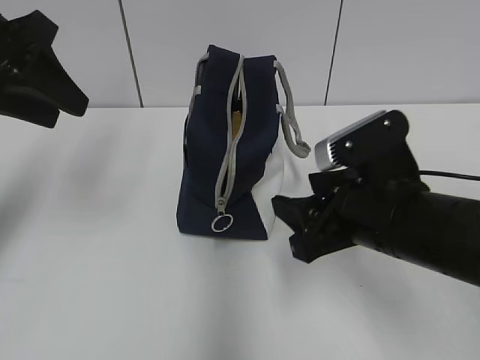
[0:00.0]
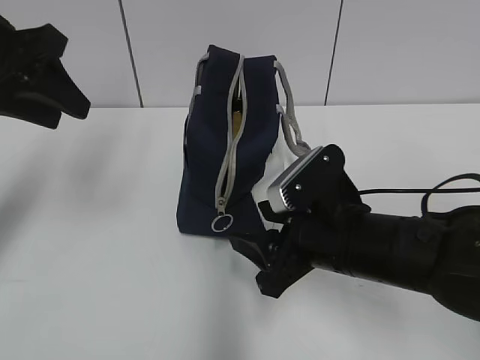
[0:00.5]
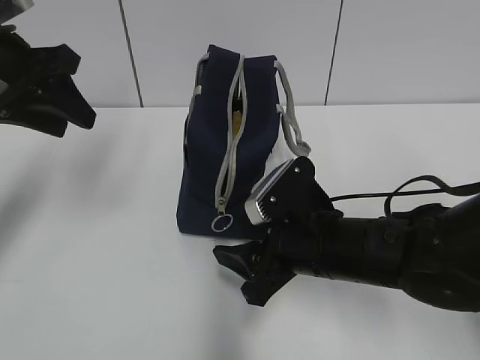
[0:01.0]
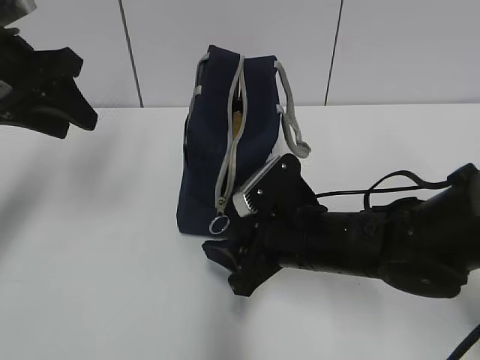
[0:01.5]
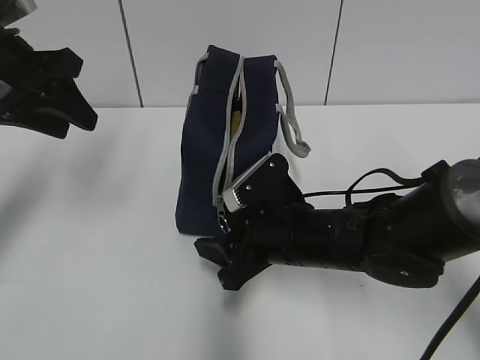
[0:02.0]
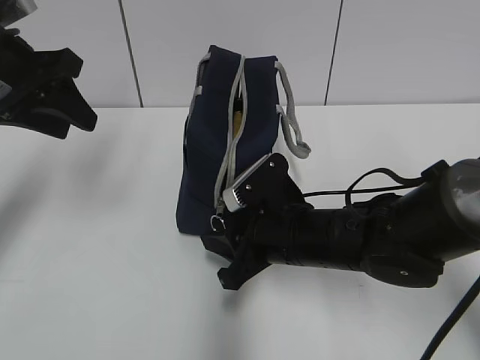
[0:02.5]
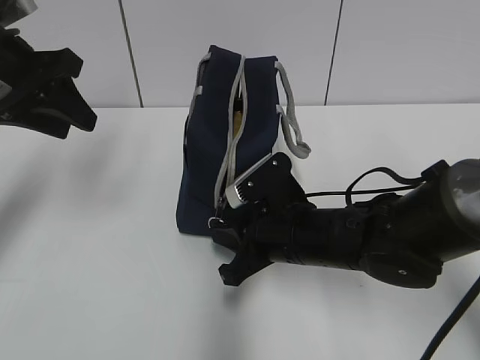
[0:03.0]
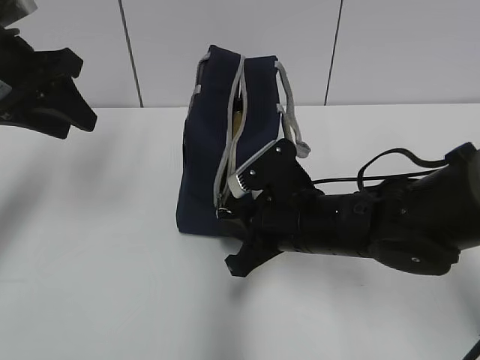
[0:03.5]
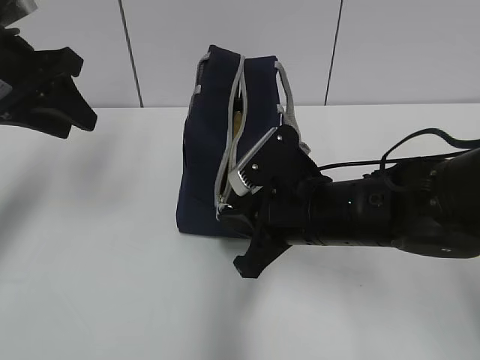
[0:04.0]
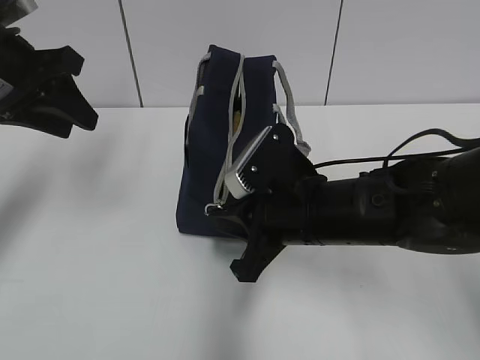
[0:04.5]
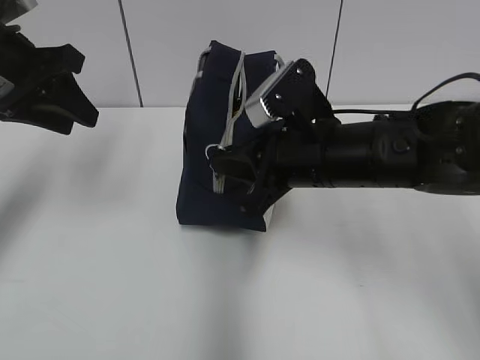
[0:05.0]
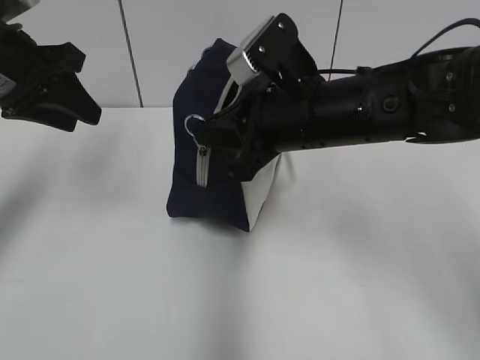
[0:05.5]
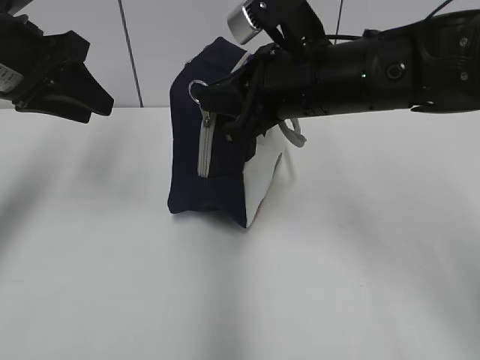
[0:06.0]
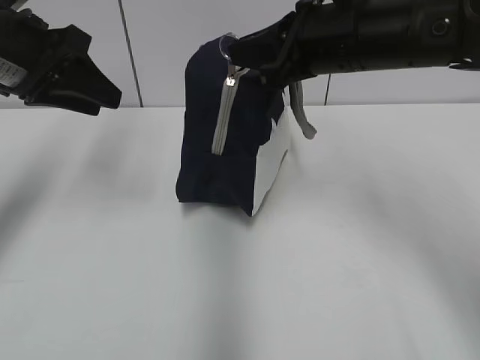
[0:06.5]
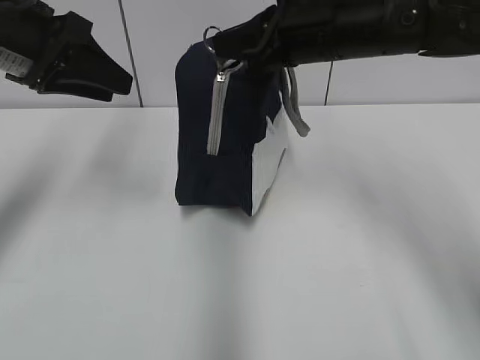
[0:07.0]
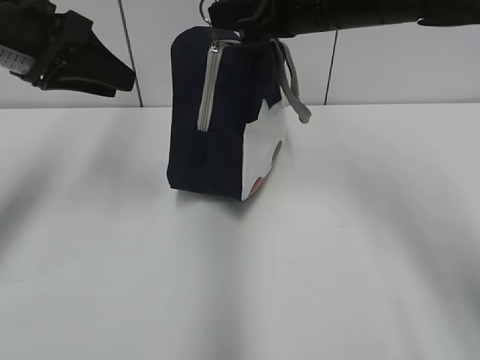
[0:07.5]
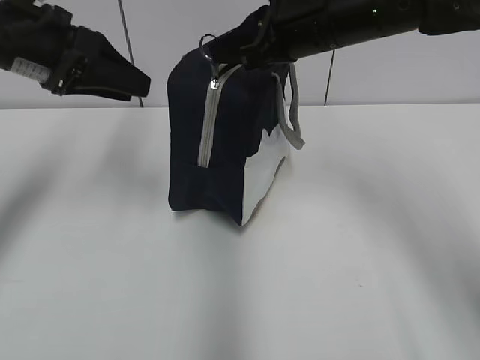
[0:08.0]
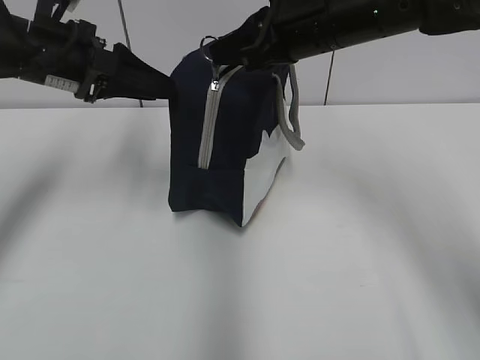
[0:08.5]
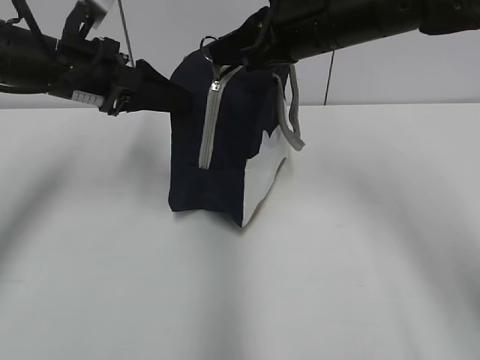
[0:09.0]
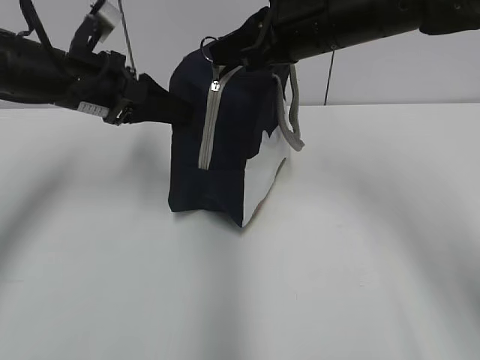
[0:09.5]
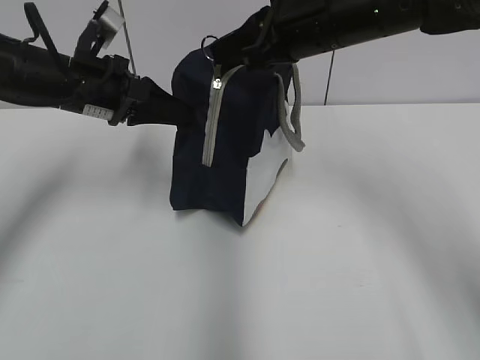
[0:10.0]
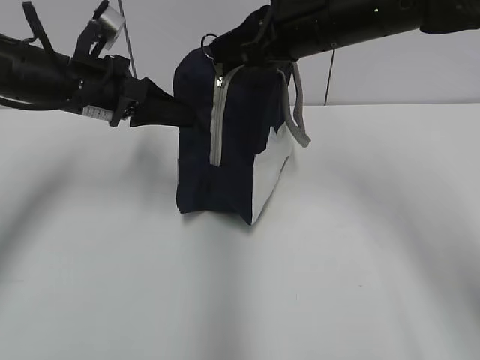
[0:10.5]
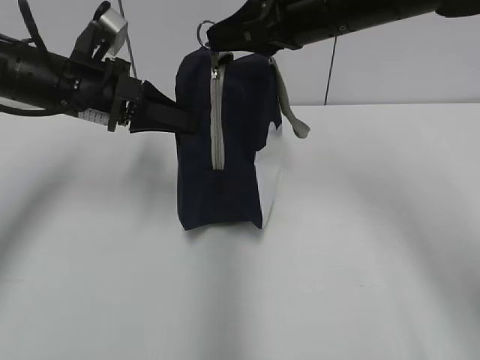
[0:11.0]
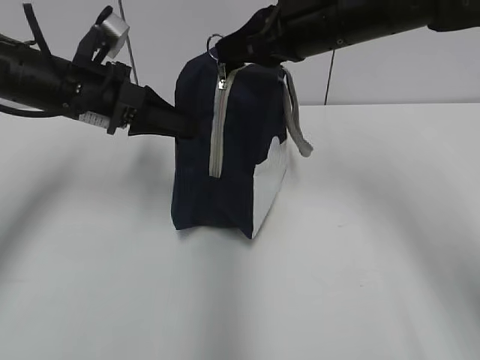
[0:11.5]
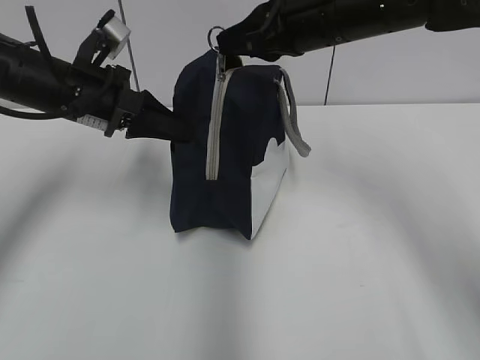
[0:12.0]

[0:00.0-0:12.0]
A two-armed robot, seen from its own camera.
0:00.0 to 0:02.0: The right gripper moves downward, to the left and forward, some 10 cm.
0:02.0 to 0:04.0: The right gripper closes up.
0:04.0 to 0:06.0: The right gripper moves upward, approximately 10 cm.
0:06.0 to 0:08.0: The right gripper goes about 5 cm forward.
0:08.0 to 0:10.0: The left gripper heads downward, covering approximately 5 cm, and closes.
0:10.0 to 0:12.0: The grippers move only a little.

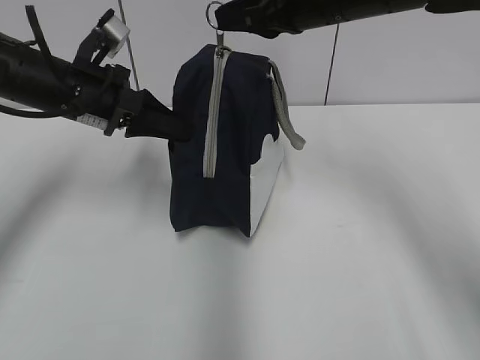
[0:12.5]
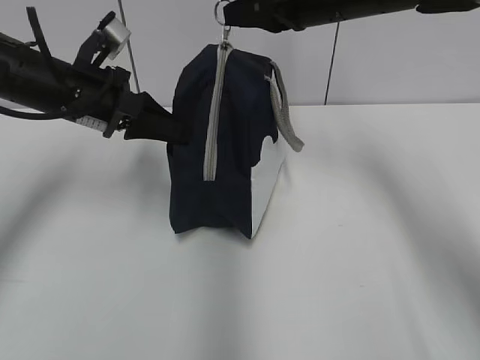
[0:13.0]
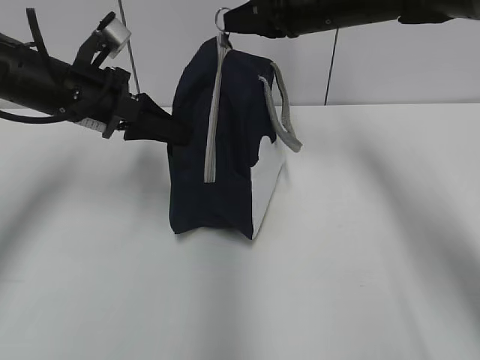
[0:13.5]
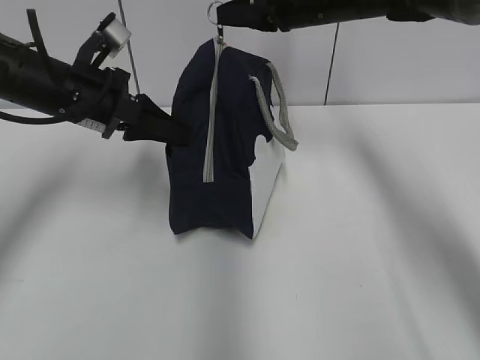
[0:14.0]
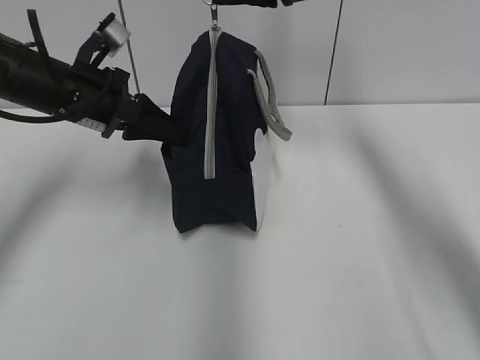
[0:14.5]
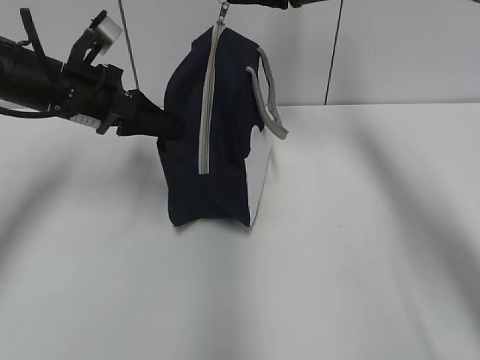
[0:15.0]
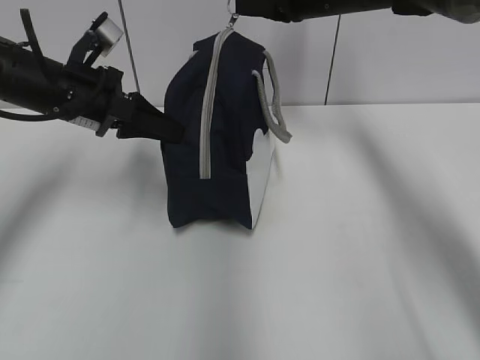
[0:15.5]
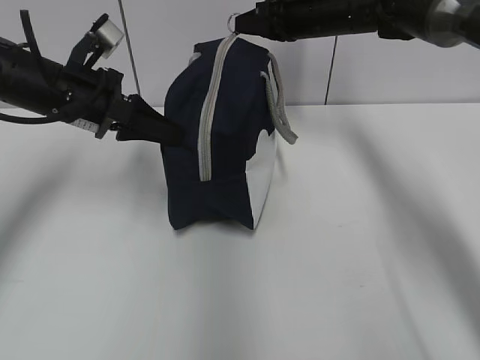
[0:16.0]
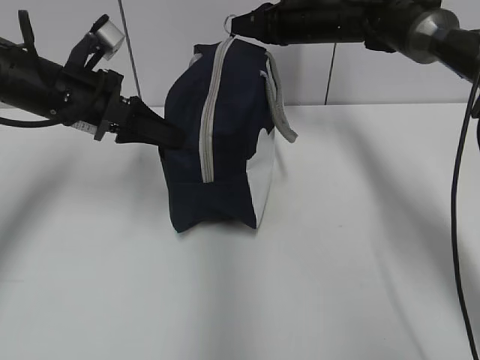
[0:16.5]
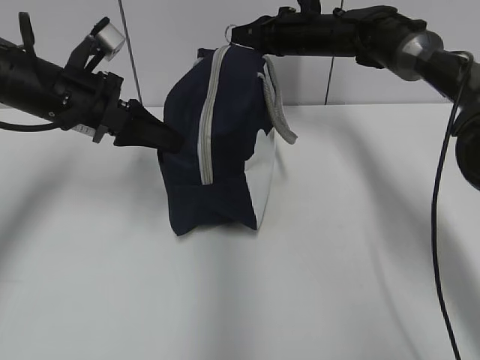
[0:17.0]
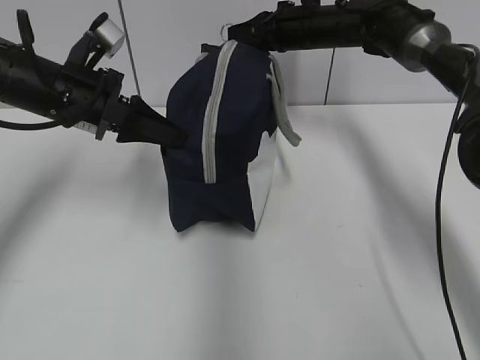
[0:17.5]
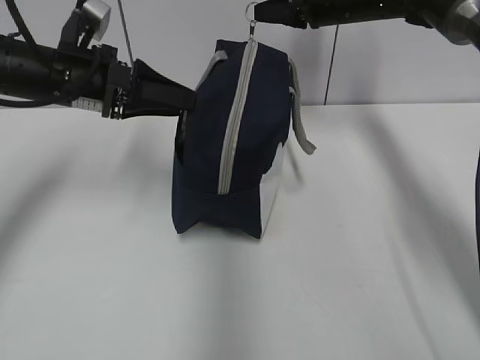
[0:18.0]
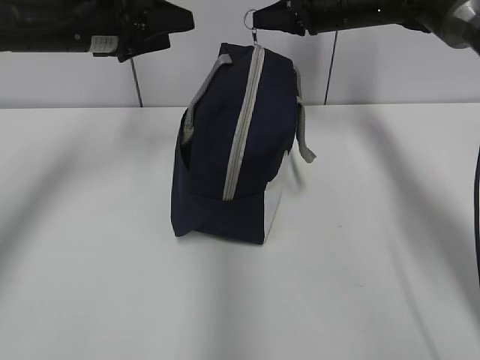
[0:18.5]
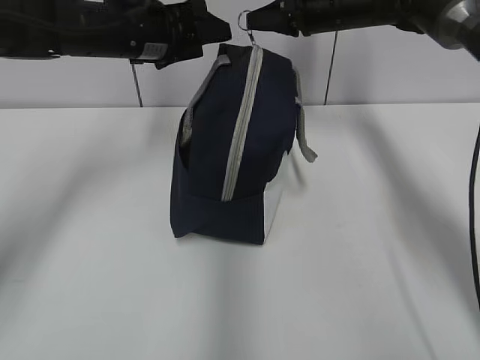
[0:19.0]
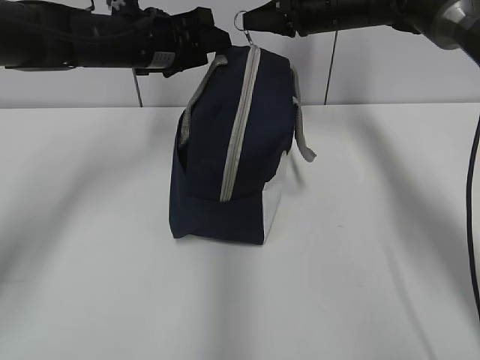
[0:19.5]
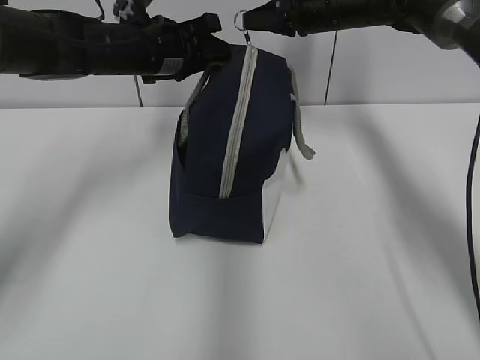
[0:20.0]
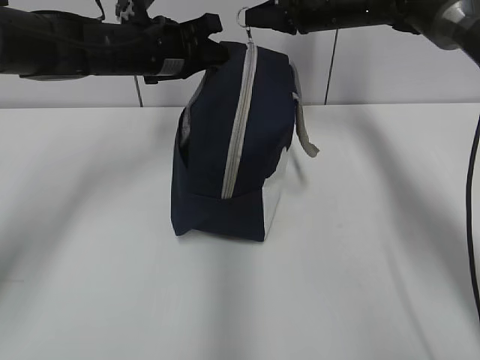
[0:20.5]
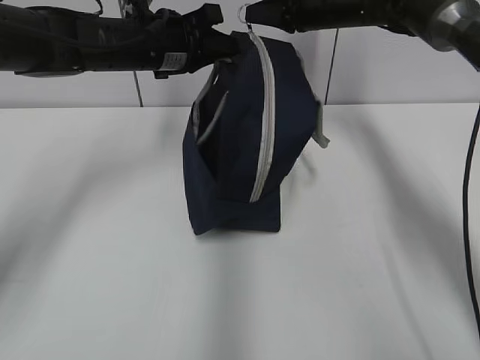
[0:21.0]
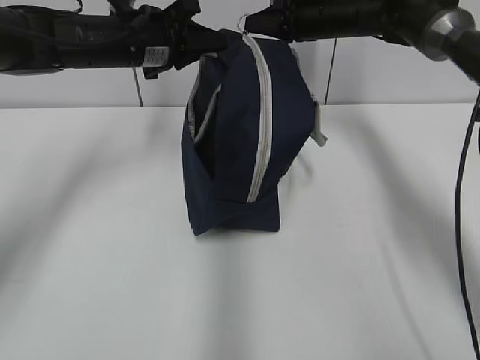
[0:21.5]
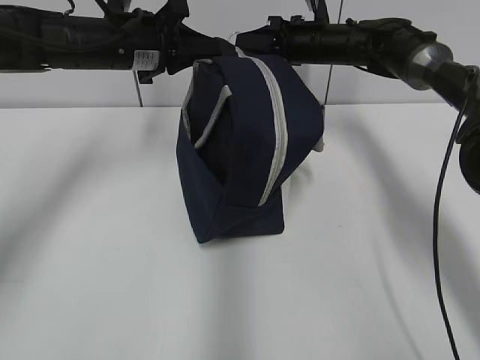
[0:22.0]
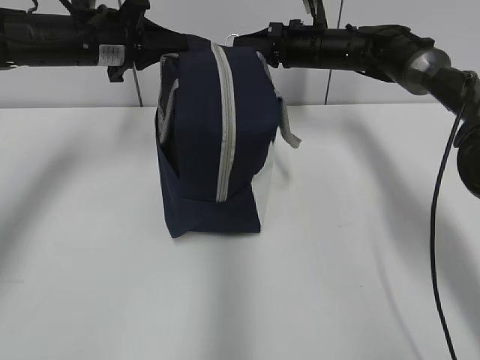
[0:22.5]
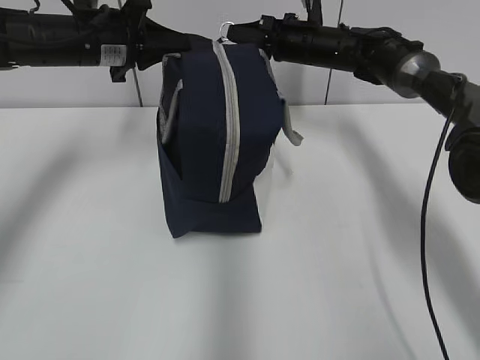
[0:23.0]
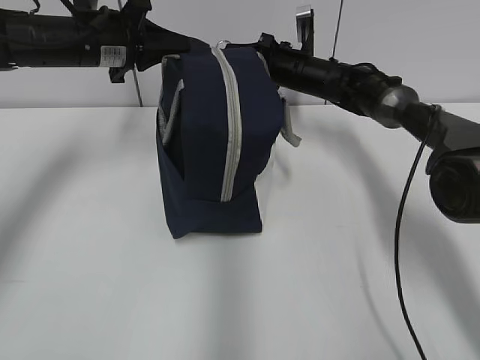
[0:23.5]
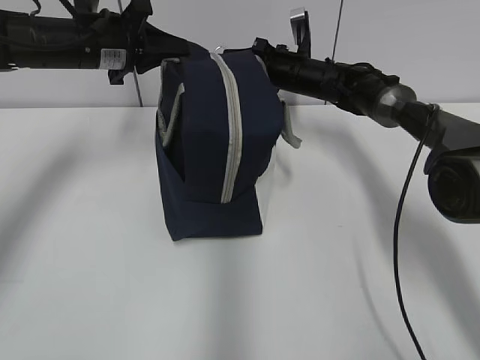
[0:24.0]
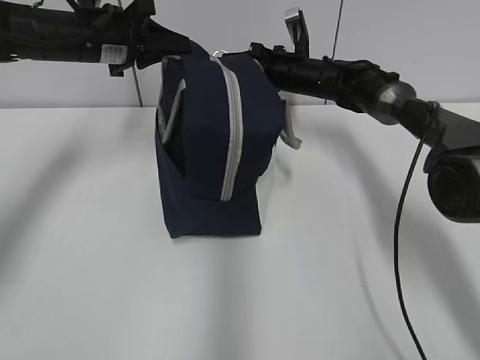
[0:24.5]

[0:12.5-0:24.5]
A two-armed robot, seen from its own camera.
0:12.5 to 0:14.5: The right gripper moves forward, approximately 10 cm.
0:14.5 to 0:16.5: The right gripper goes about 10 cm downward and forward.
0:16.5 to 0:18.5: The left gripper moves forward and upward, about 5 cm, and opens.
0:18.5 to 0:20.5: The left gripper shifts about 5 cm to the right, and closes its fingers.
0:20.5 to 0:22.5: The left gripper shifts roughly 5 cm to the left; the right gripper heads downward, covering roughly 5 cm.
0:22.5 to 0:24.5: The right gripper shifts about 5 cm downward.

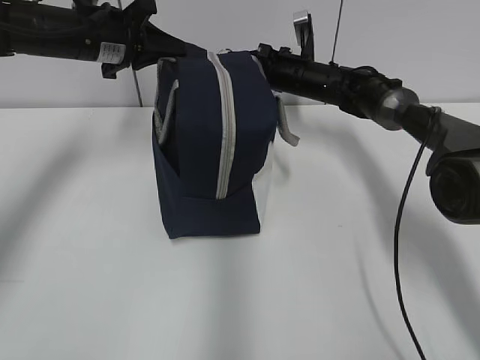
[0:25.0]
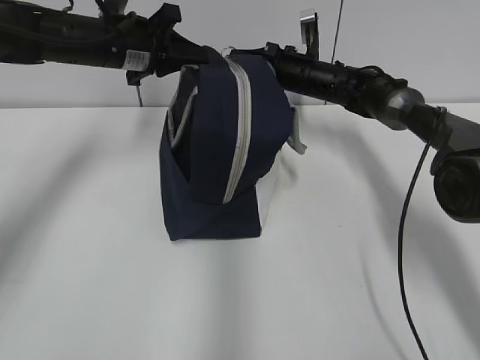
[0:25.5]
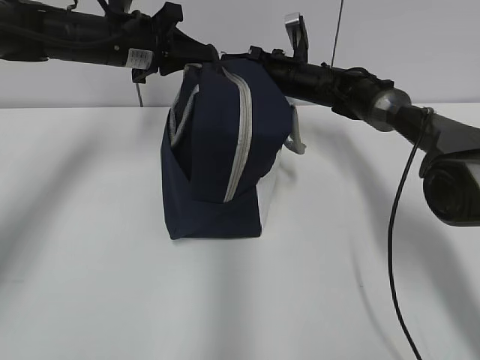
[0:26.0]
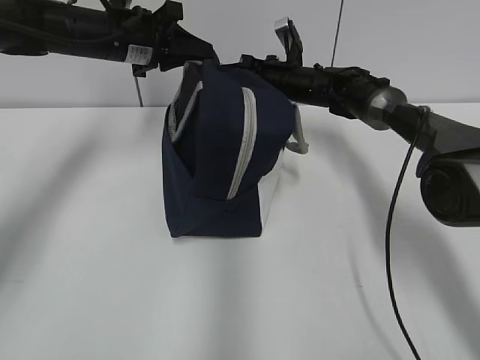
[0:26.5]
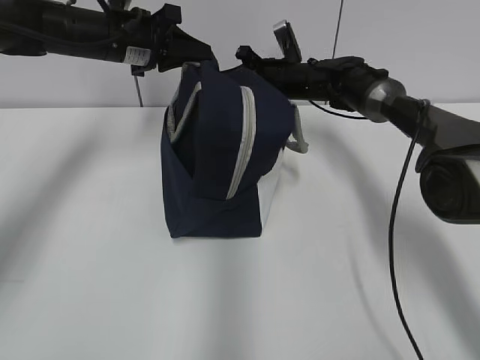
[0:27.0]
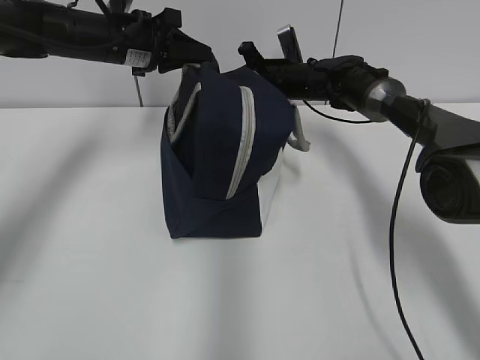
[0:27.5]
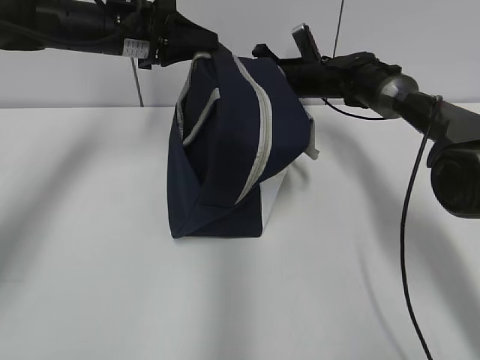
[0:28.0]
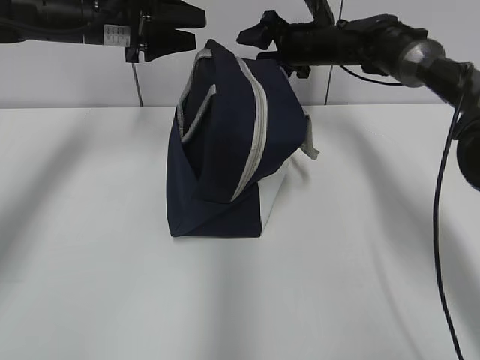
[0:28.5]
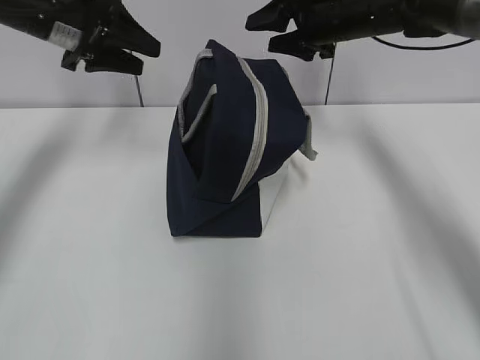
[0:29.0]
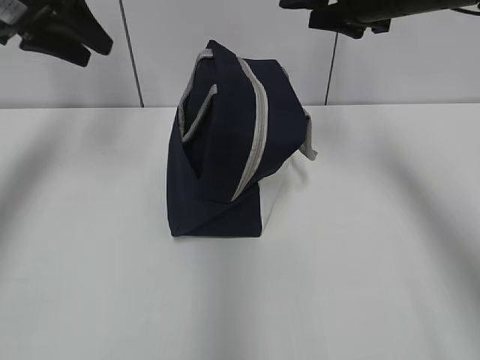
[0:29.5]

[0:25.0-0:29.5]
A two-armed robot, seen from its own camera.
0:27.0 to 0:29.5: The left gripper moves upward, to the left and backward, roughly 15 cm, and opens; the right gripper travels upward and backward by some 25 cm, and opens its fingers.
